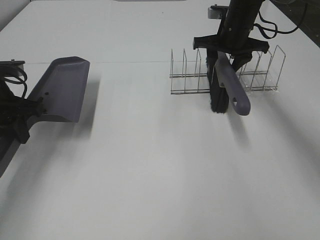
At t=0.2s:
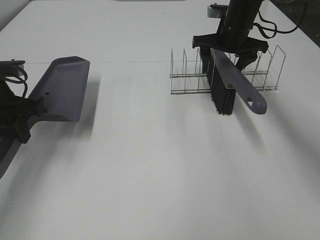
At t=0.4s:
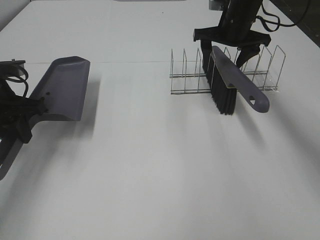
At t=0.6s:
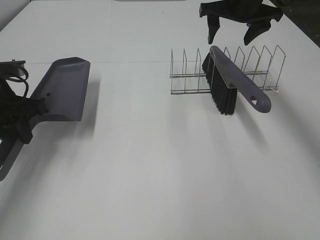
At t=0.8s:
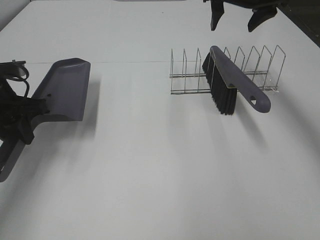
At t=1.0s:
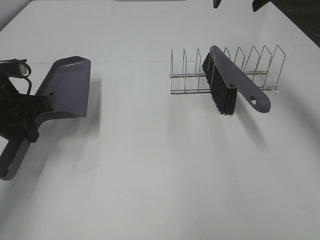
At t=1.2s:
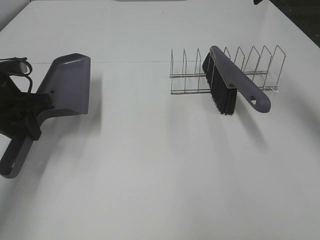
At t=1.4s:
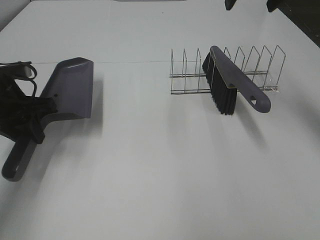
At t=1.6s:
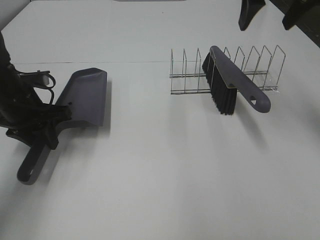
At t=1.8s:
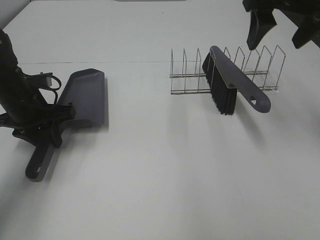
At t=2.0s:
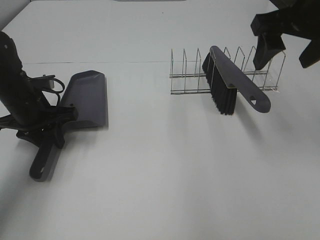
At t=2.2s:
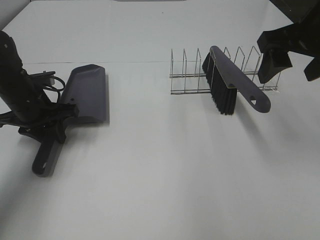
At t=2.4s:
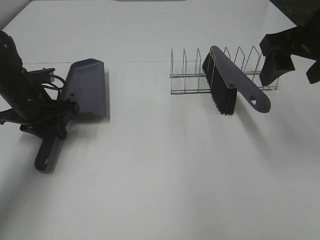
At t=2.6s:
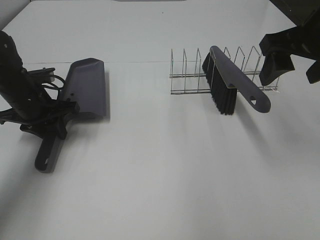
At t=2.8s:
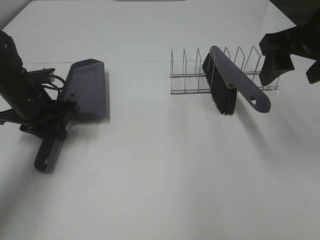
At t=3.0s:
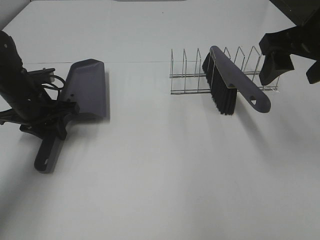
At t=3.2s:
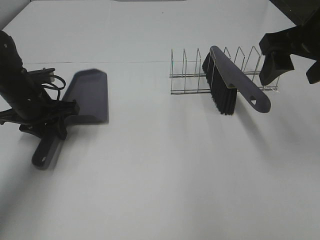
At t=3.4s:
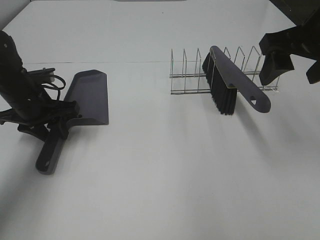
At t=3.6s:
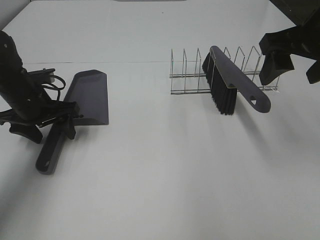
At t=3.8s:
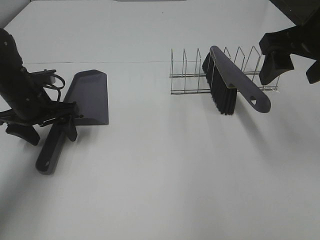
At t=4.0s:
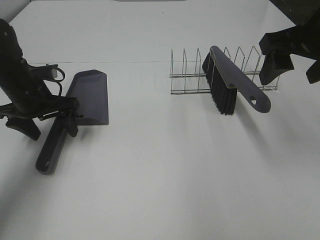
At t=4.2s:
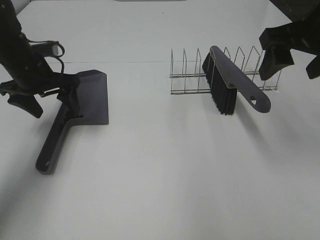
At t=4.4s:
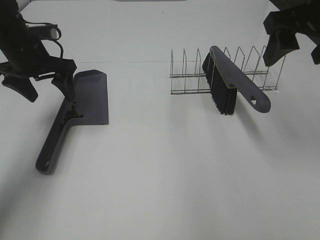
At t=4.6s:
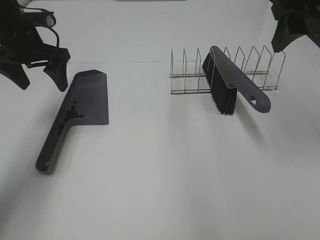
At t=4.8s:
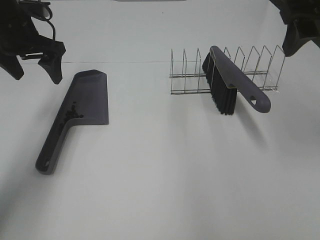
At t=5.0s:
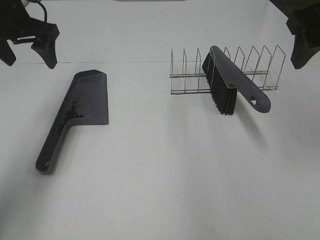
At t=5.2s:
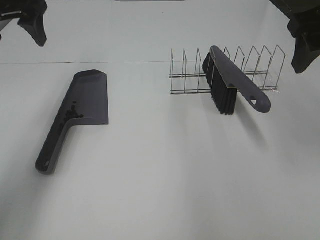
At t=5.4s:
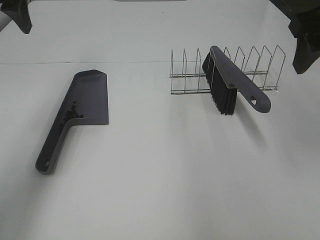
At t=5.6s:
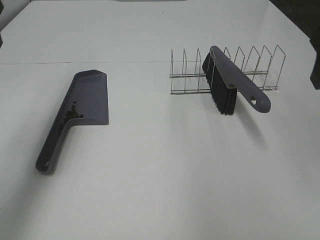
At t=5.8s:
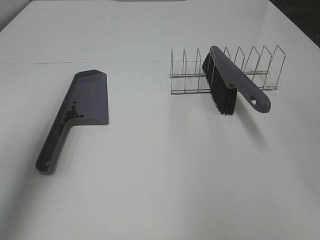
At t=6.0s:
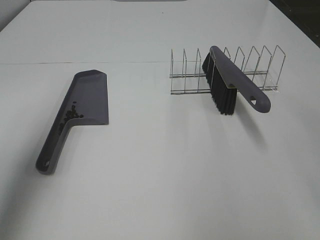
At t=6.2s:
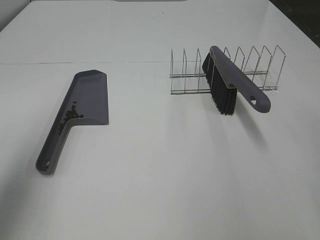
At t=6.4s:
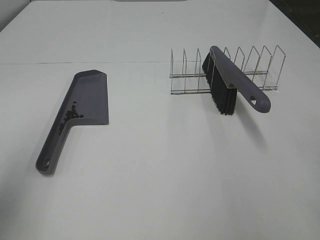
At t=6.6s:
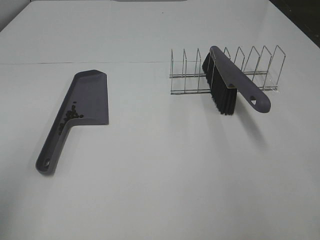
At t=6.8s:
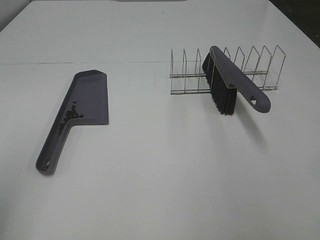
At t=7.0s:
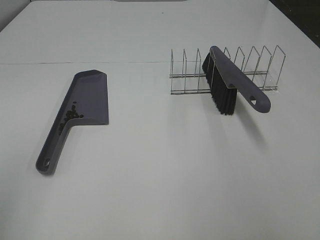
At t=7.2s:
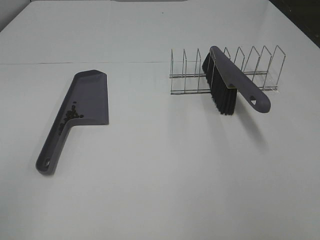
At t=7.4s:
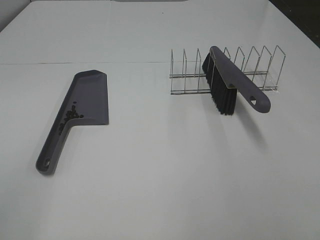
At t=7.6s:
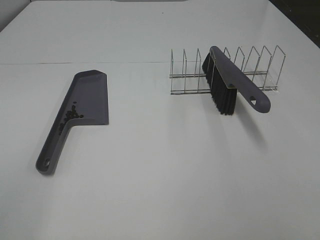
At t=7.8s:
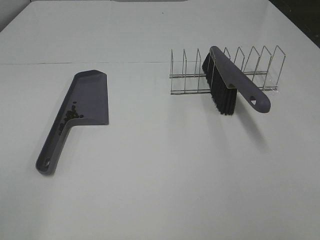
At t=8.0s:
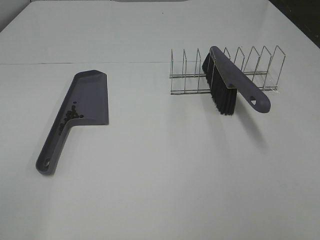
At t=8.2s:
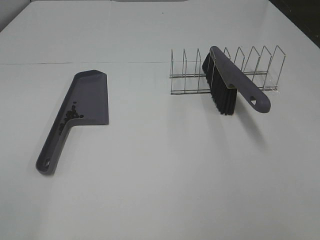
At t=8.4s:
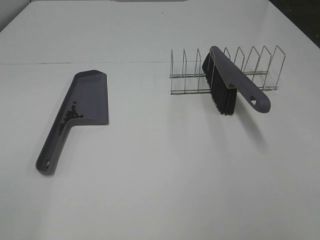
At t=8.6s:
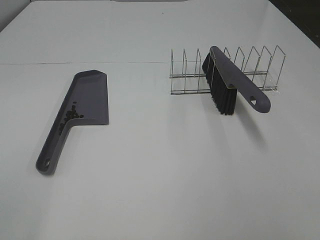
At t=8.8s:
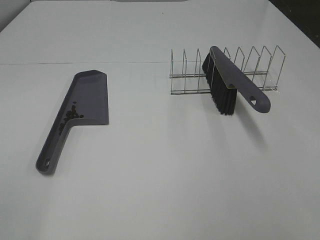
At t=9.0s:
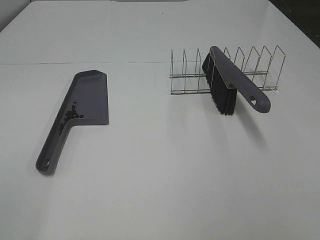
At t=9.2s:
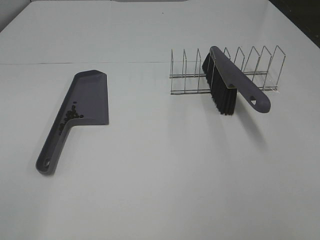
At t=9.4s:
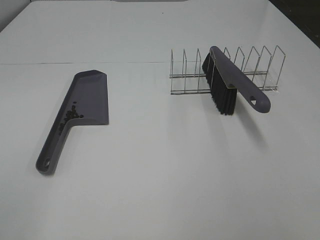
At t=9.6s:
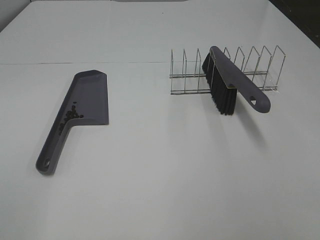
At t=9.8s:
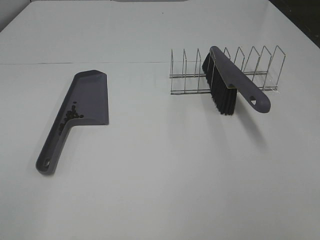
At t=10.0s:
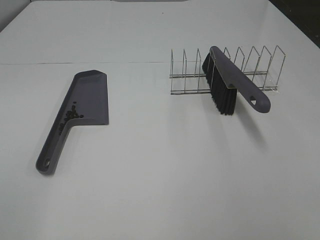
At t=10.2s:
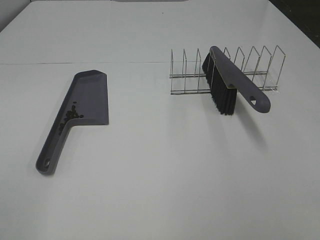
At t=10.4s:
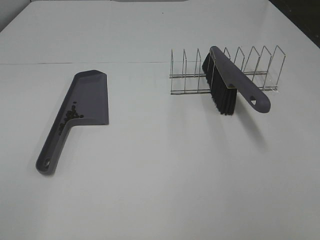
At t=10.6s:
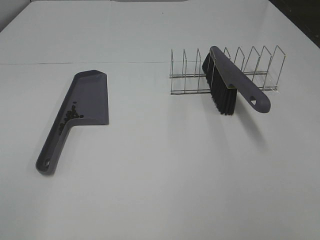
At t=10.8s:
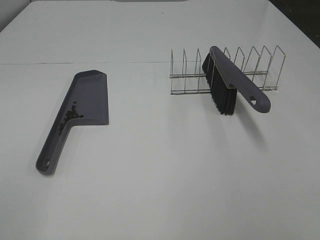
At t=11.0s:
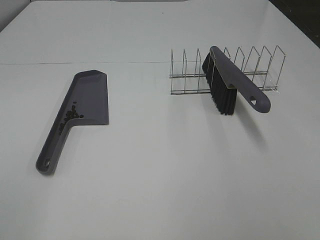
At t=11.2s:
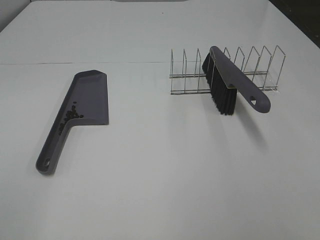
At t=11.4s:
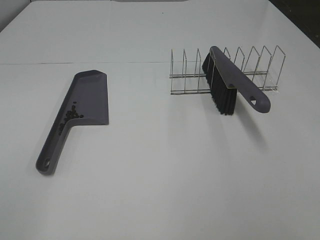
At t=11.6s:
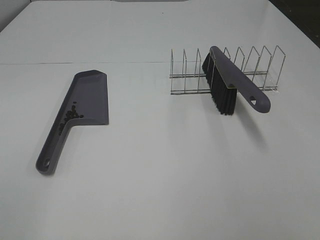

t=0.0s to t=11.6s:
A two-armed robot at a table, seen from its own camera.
Task of the whole recording: Sweep Coffee Bean.
Step, t=0.6s to t=3.6s: Left hand:place the dustpan on the table.
t=0.0s to t=1.4s: The right gripper shifts approximately 20 cm upward and backward, and opens its fingers.
t=1.4s to t=2.8s: The right gripper moves backward and downward, approximately 15 cm. Meanwhile the left gripper ends up roughly 5 cm from where it was.
t=2.8s to t=4.4s: The left gripper shifts some 10 cm upward, and opens.
t=4.4s to t=5.8s: The right gripper goes roughly 10 cm backward. The left gripper heads backward and upward, covering roughly 20 cm.
t=5.8s to t=7.2s: The left gripper is displaced backward by approximately 25 cm.
t=10.2s to t=11.6s: The two grippers keep their place.

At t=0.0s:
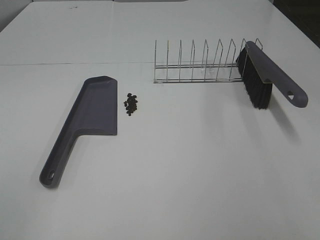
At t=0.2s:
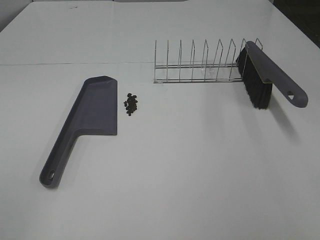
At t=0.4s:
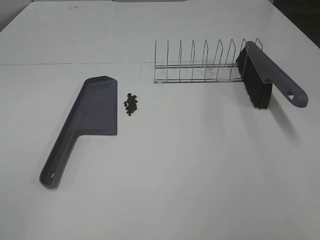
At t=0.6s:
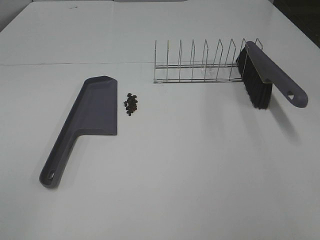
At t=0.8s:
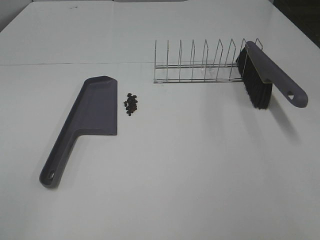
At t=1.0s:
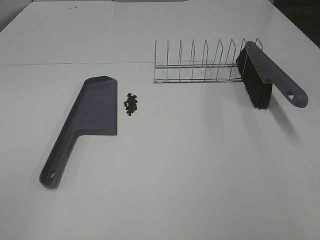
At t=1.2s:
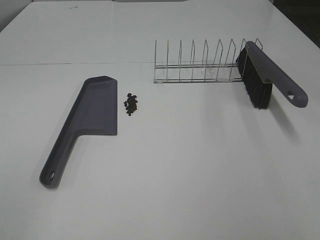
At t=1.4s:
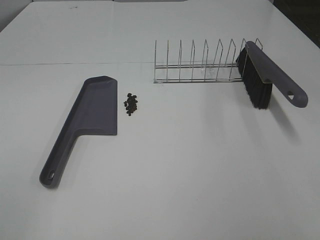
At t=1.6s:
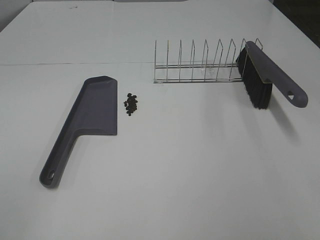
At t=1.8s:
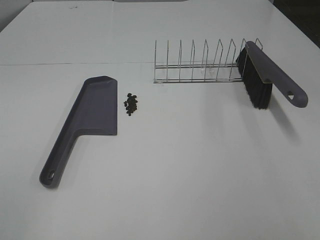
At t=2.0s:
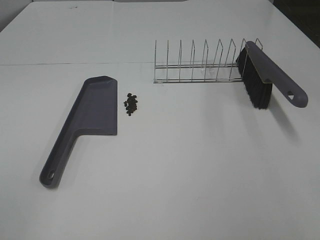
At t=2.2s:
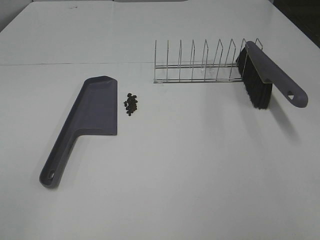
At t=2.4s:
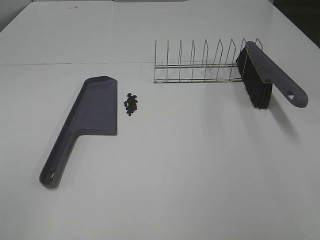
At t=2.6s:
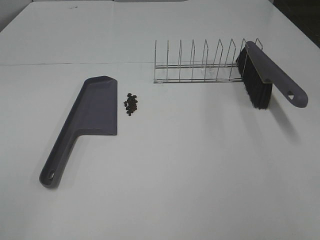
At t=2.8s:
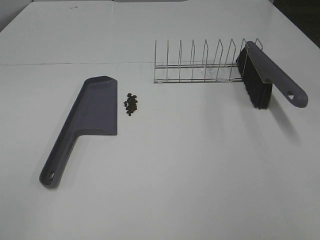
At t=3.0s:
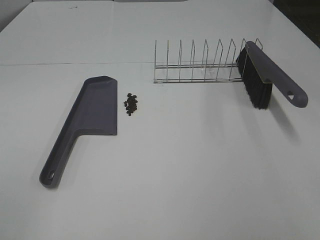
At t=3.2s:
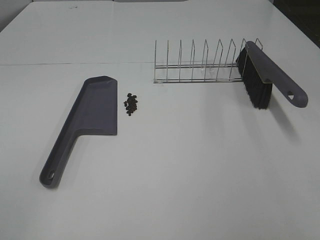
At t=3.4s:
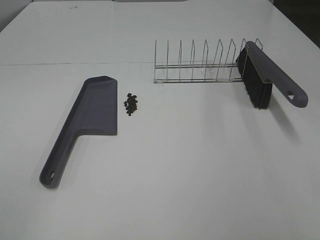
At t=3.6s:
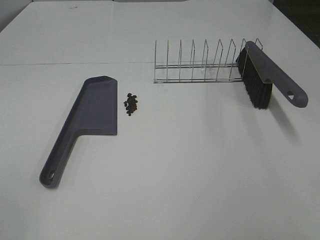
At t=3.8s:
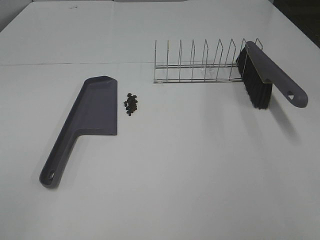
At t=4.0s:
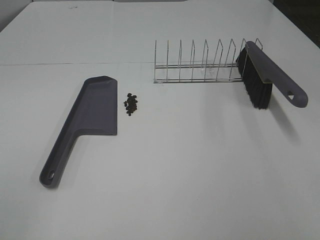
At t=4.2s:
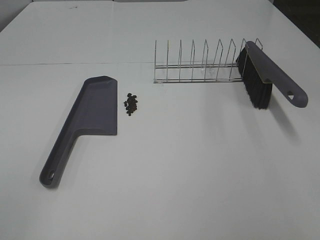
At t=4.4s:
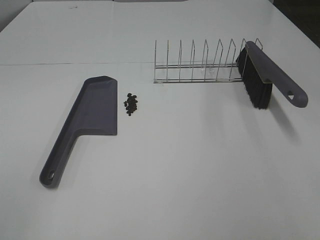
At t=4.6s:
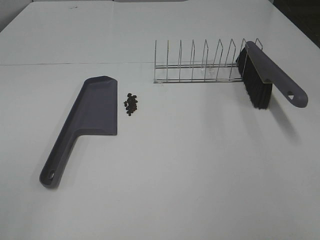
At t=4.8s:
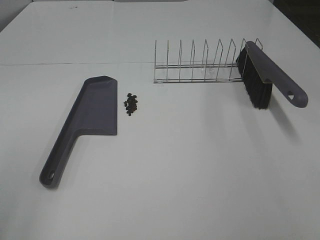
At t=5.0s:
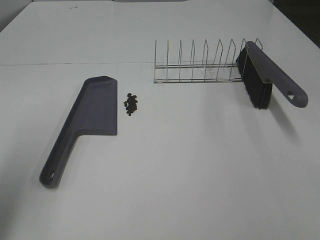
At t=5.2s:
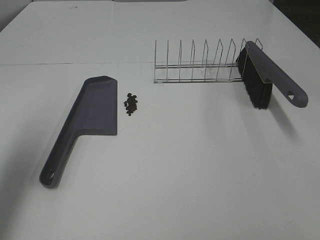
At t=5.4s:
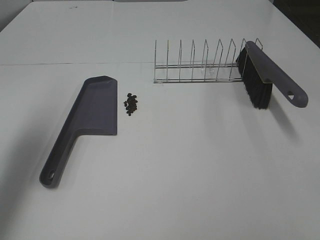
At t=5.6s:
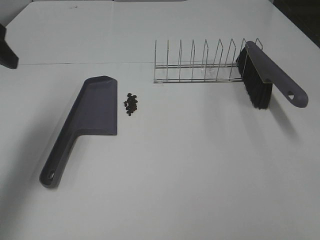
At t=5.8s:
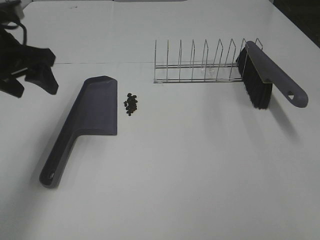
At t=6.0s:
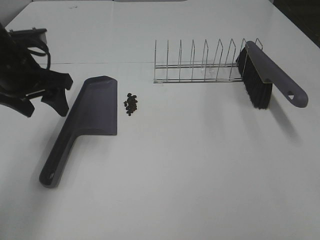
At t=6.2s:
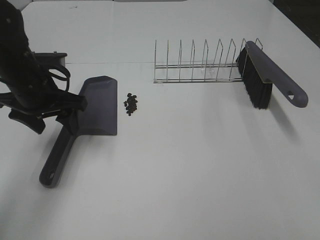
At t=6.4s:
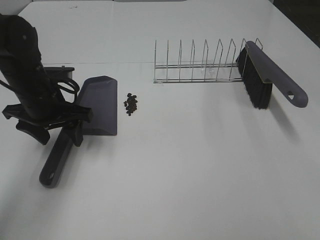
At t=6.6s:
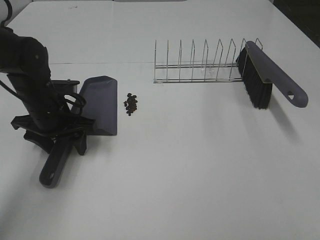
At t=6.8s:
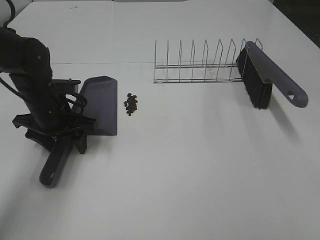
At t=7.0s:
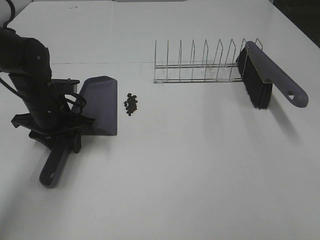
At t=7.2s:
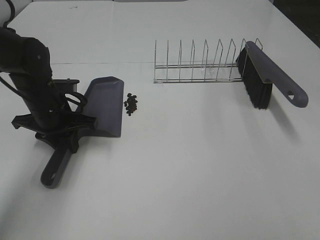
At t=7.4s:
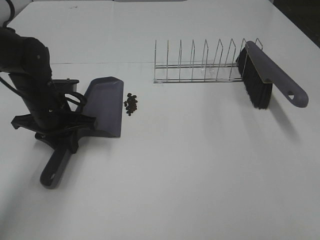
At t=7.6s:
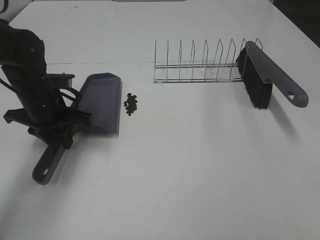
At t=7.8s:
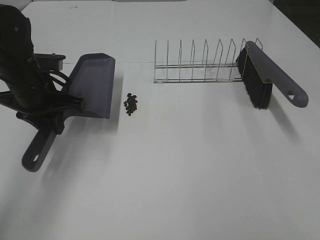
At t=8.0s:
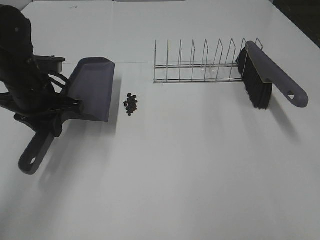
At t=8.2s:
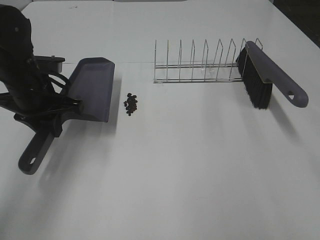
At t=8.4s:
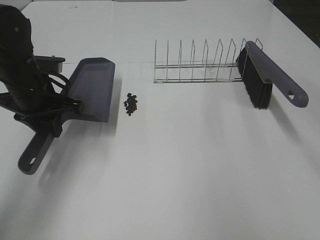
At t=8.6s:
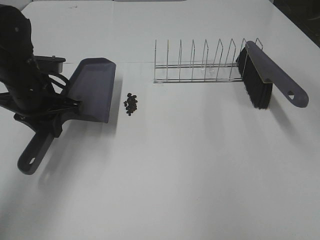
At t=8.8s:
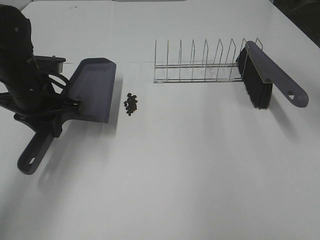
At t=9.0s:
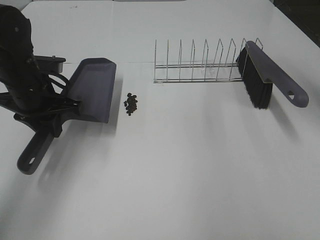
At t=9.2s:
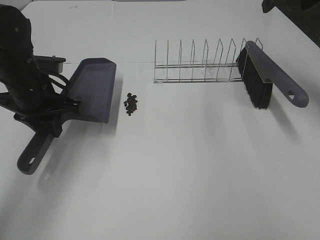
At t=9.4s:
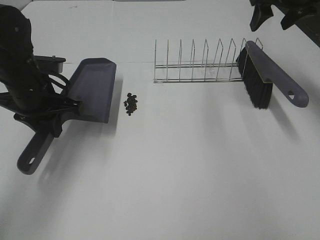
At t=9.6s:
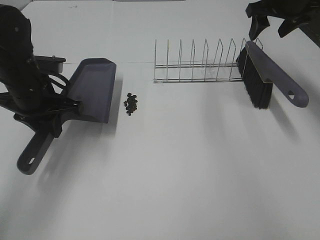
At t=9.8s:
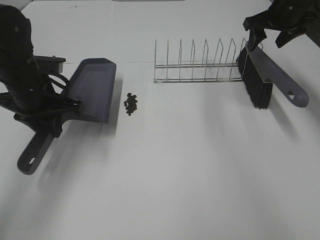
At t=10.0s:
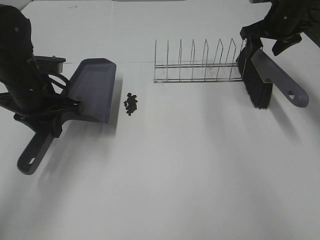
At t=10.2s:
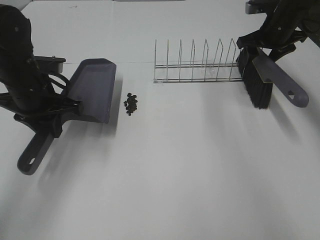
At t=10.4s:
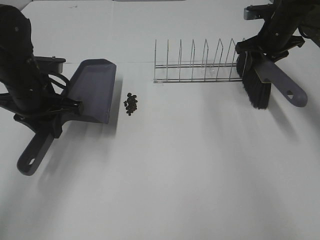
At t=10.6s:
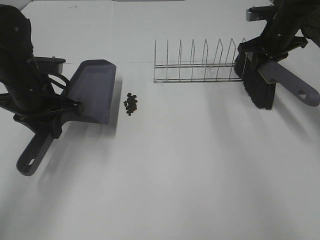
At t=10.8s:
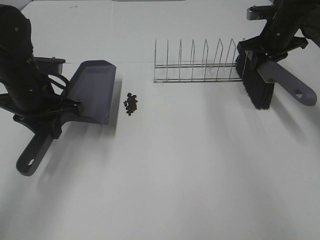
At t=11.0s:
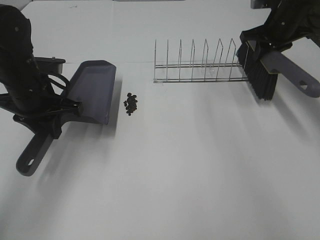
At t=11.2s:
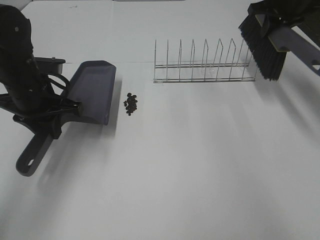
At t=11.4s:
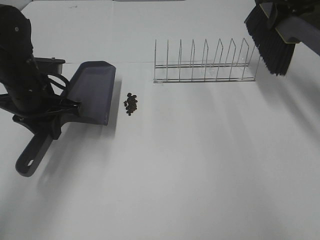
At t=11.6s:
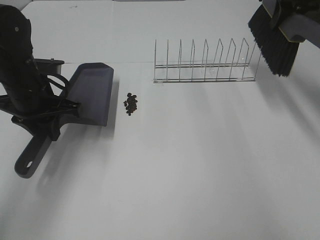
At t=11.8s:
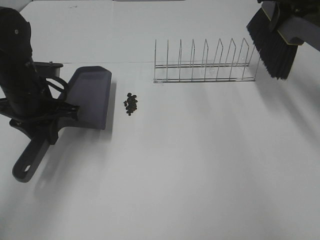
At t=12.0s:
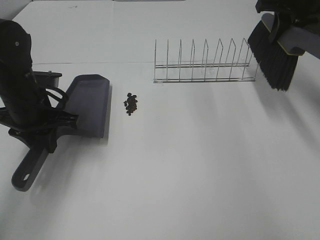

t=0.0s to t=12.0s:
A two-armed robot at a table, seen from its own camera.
Task of the whole recording: Sweep Coffee Bean.
Step, t=0.0s to t=7.2s: Left hand: grab the dustpan.
Step, t=7.8s to t=10.6s: Right hand:grab the broom.
t=0.0s to t=4.4s: The two grippers keep their place.
t=4.4s to t=6.0s: The left gripper heads forward, covering approximately 35 cm.
t=6.0s to t=7.6s: The left gripper closes.
t=7.6s to t=9.0s: The right gripper travels forward by roughly 40 cm.
t=9.0s to t=10.4s: The right gripper moves downward and forward, about 20 cm, and closes.
t=10.4s to t=12.0s: The right gripper goes approximately 10 cm upward and backward.
